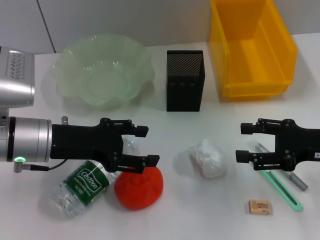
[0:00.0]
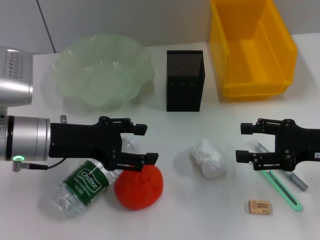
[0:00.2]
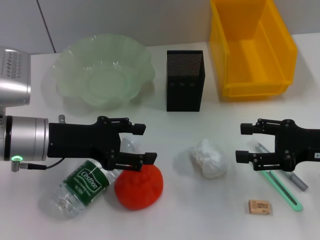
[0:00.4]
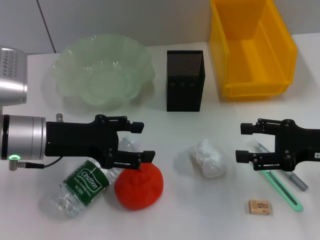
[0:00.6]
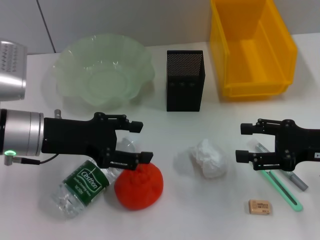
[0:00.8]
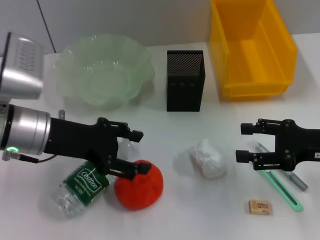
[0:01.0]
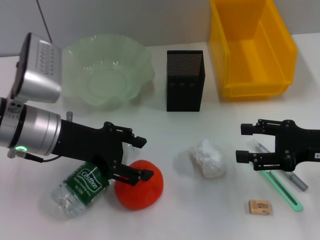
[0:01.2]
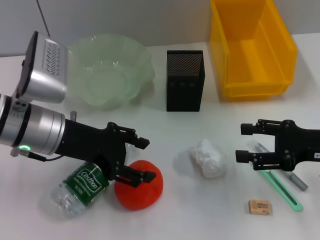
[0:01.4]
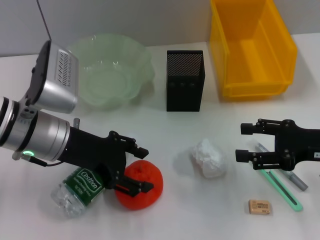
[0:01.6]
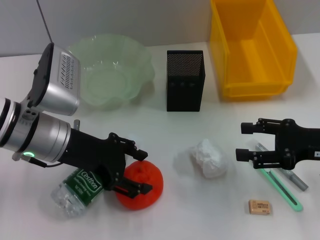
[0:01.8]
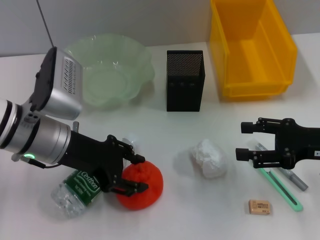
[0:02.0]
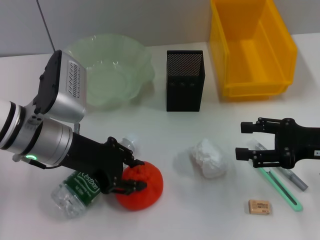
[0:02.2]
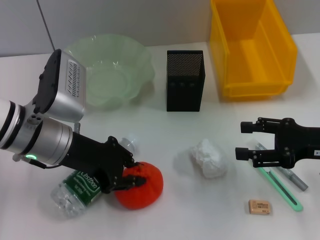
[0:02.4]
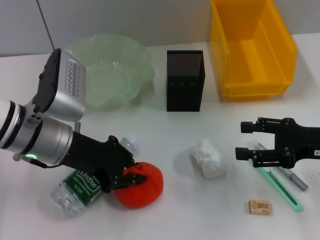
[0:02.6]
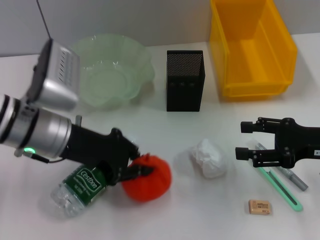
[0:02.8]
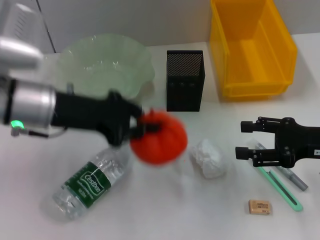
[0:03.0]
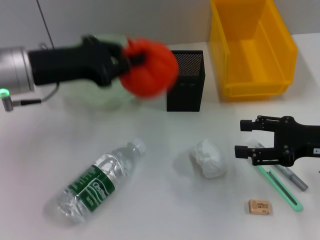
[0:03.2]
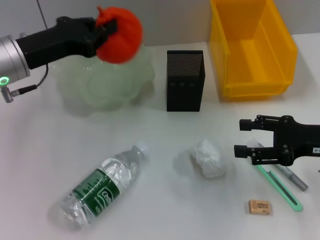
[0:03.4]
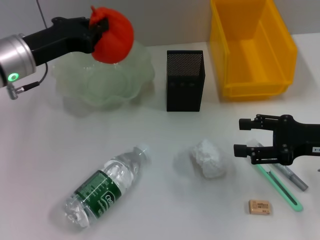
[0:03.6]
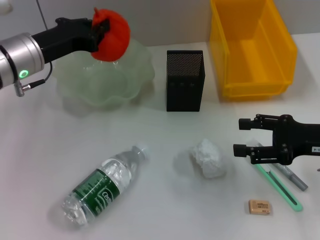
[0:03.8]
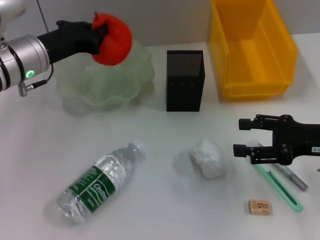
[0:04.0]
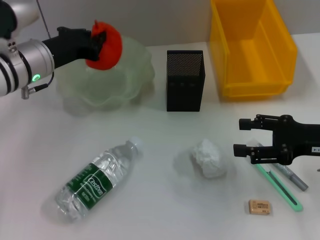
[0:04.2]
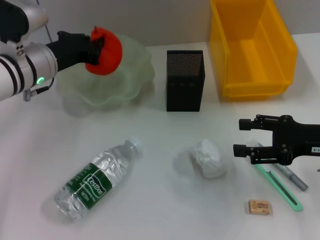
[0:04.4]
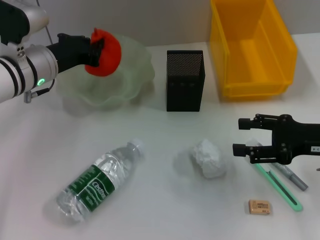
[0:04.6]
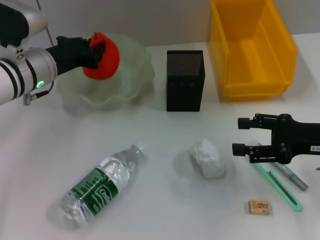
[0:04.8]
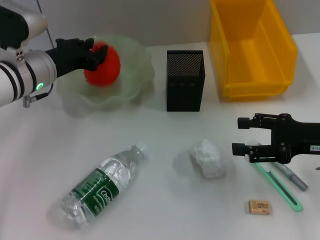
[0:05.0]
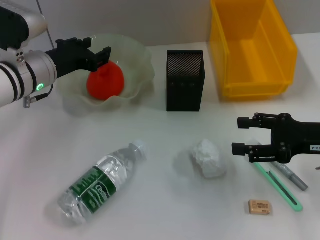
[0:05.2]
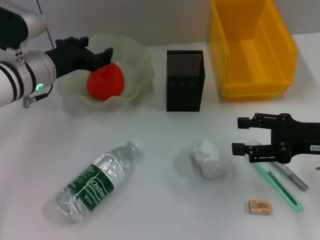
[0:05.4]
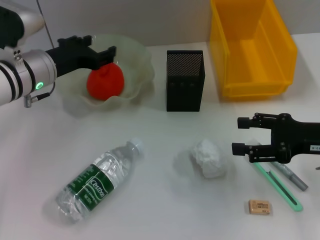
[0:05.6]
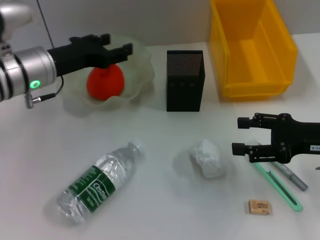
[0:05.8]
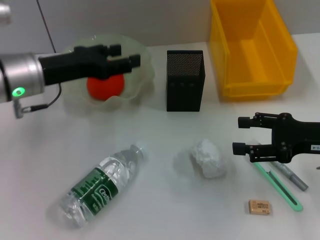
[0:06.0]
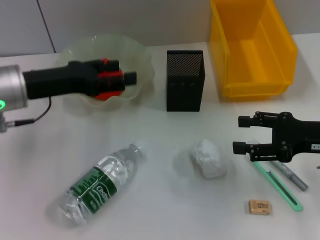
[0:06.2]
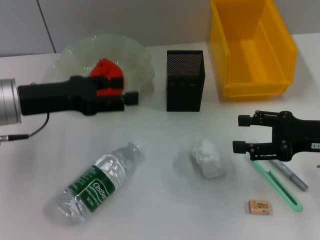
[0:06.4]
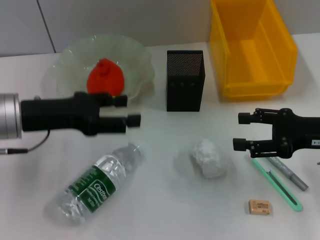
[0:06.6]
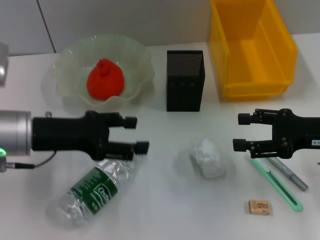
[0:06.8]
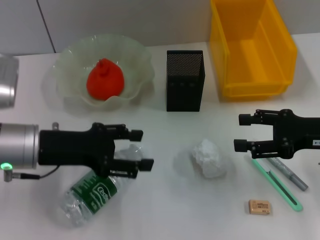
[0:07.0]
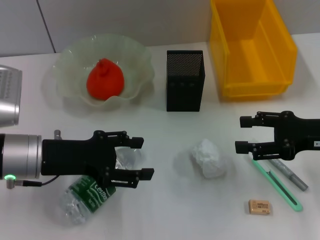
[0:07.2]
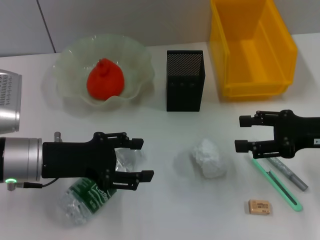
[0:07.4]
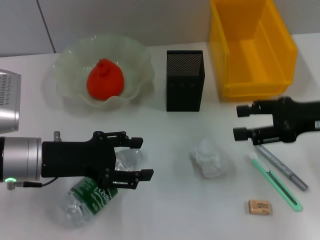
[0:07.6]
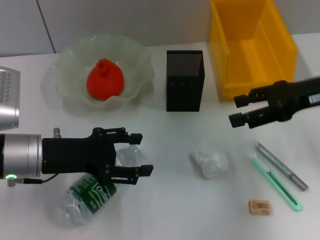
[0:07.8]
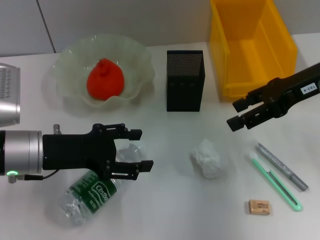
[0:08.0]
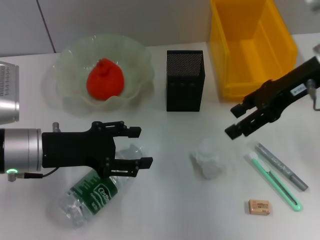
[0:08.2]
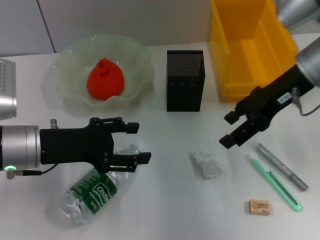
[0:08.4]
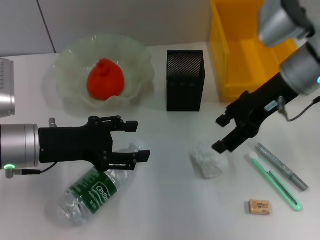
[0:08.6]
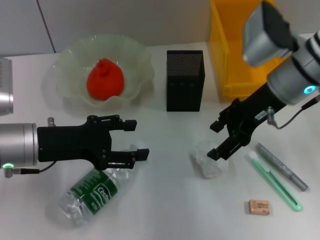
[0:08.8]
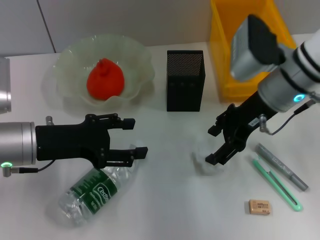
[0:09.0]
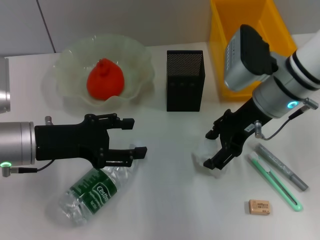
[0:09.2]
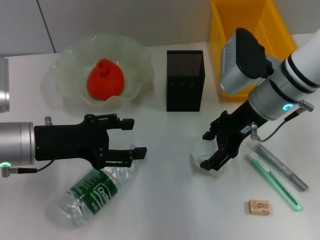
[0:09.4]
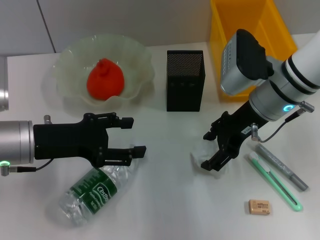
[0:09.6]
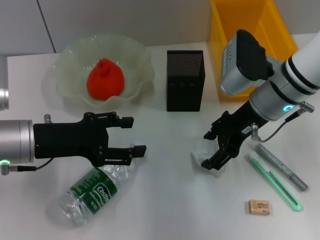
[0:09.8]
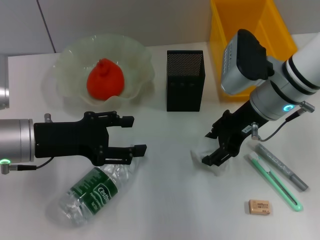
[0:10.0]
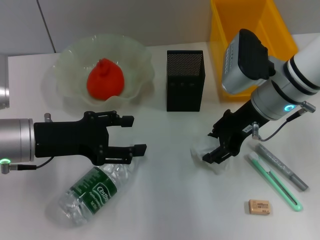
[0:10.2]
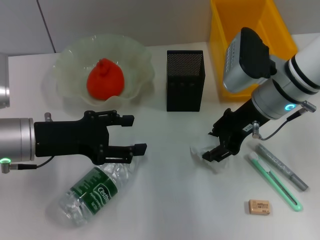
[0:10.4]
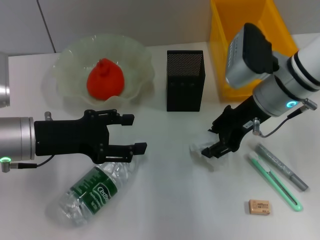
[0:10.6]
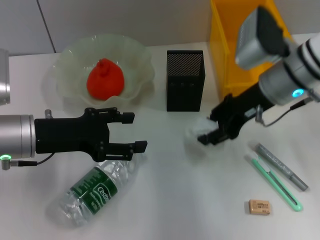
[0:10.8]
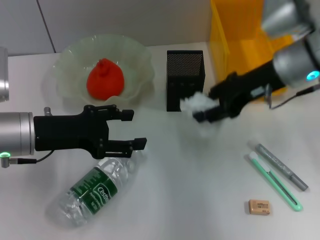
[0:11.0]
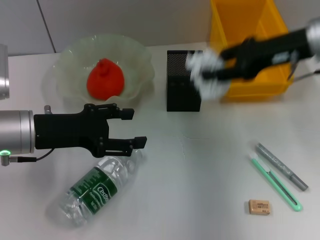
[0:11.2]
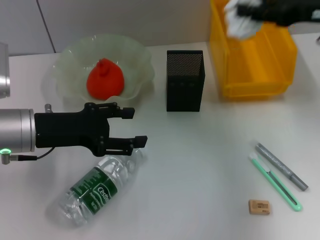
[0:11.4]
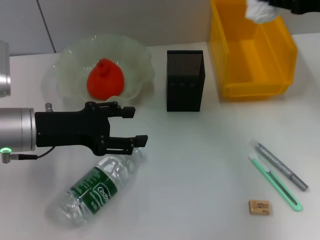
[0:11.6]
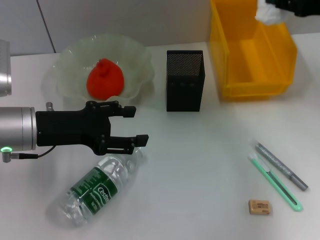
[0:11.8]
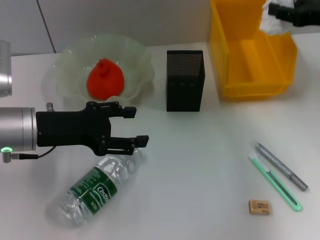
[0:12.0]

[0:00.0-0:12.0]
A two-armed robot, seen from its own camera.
Step, 0:00.0 to 0:02.4: Grab the orange with the left hand.
Step, 0:02.6 to 0:05.2: Place the orange into the fruit bowl with the left hand.
Step, 0:05.4 to 0:10.2: Grab the paper ball with the right hand.
0:01.6 to 0:03.0: The left gripper closes.
0:03.0 to 0:04.4: The left gripper heads forward, covering about 10 cm.
0:04.4 to 0:06.0: The left gripper opens up.
0:06.0 to 0:07.6: The left gripper heads backward, covering about 10 cm.
0:07.6 to 0:09.0: The right gripper goes roughly 15 cm to the left and forward.
0:09.0 to 0:10.4: There are only small adjustments of the grippers.
0:10.4 to 0:12.0: The right gripper heads to the right, covering roughly 15 cm.

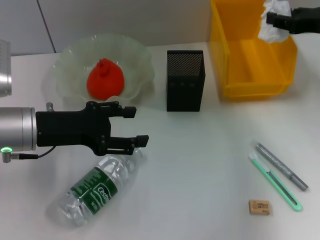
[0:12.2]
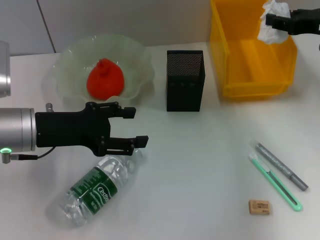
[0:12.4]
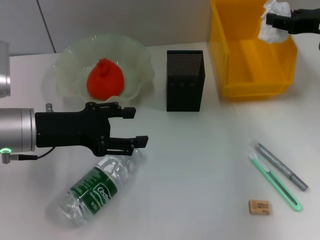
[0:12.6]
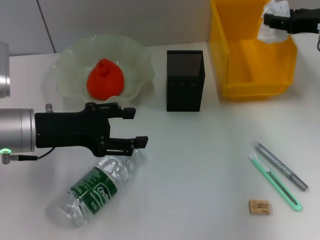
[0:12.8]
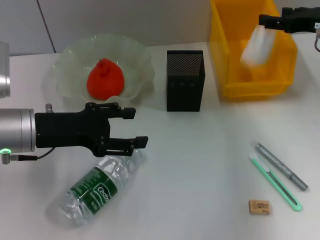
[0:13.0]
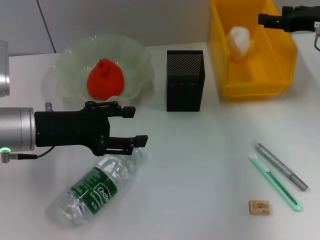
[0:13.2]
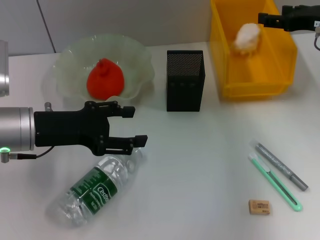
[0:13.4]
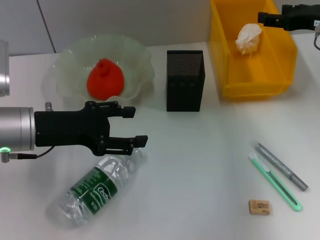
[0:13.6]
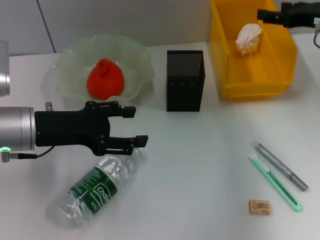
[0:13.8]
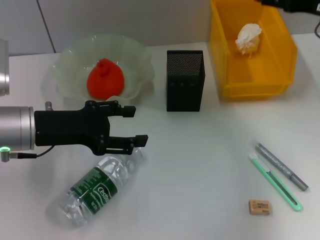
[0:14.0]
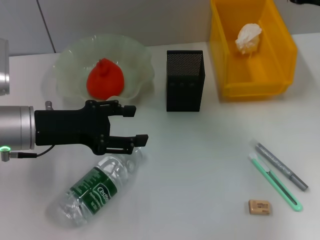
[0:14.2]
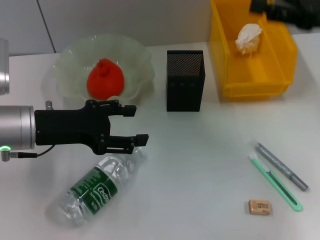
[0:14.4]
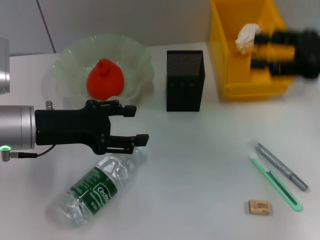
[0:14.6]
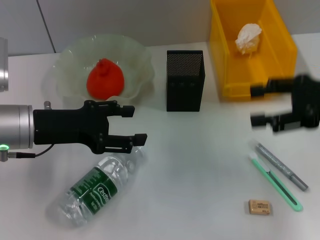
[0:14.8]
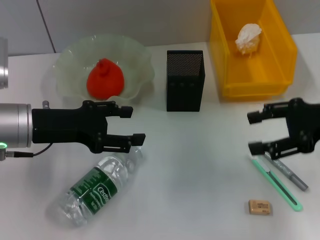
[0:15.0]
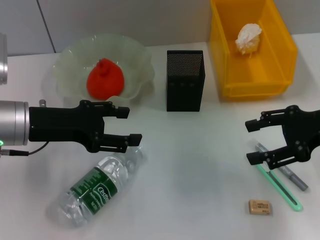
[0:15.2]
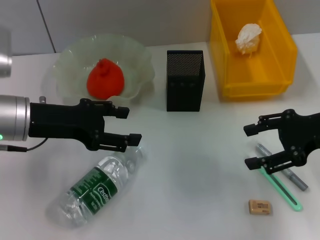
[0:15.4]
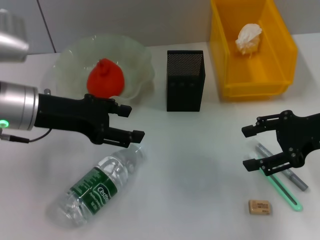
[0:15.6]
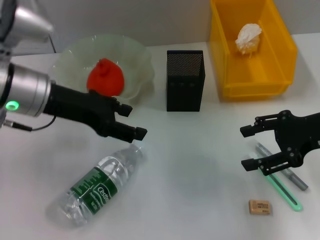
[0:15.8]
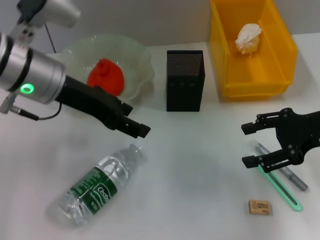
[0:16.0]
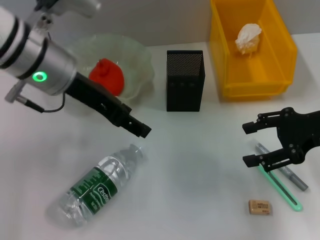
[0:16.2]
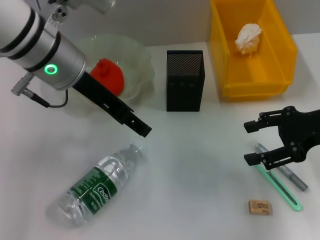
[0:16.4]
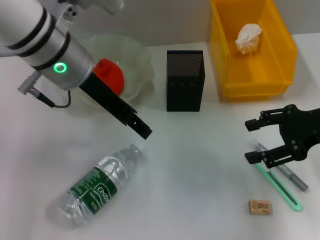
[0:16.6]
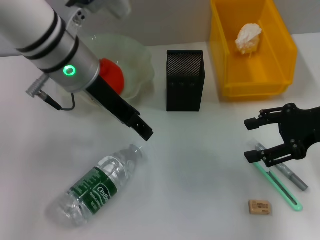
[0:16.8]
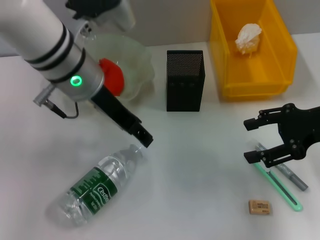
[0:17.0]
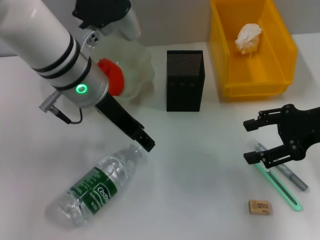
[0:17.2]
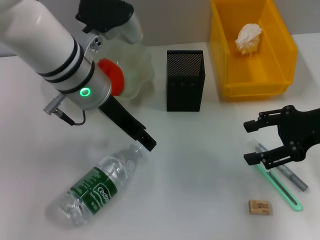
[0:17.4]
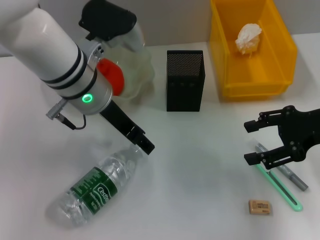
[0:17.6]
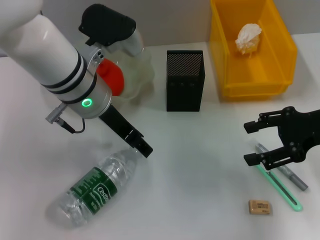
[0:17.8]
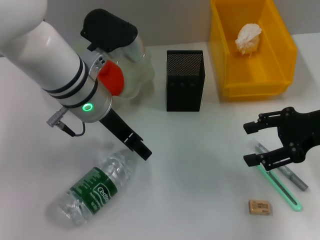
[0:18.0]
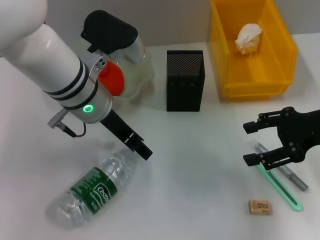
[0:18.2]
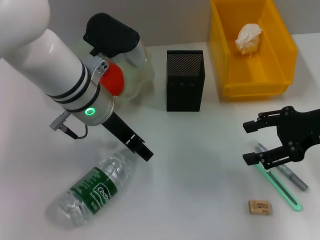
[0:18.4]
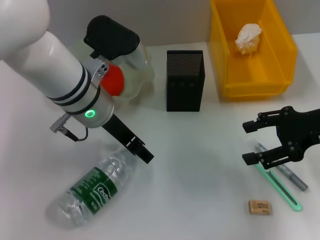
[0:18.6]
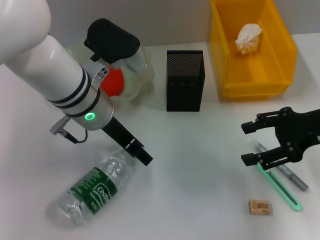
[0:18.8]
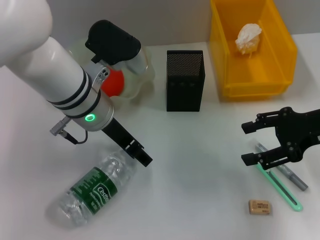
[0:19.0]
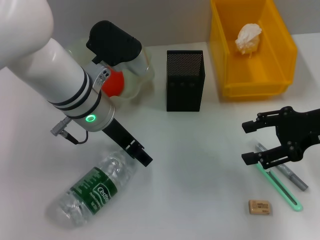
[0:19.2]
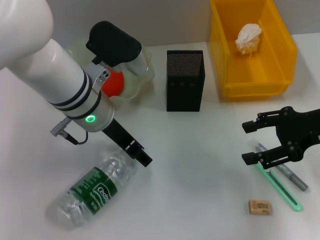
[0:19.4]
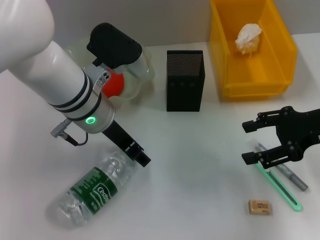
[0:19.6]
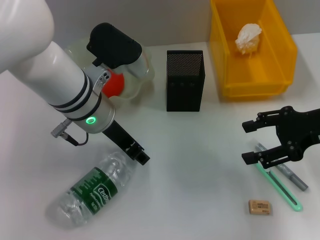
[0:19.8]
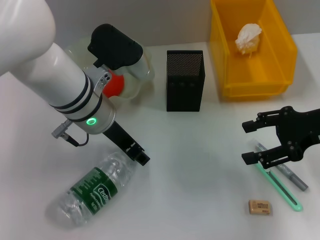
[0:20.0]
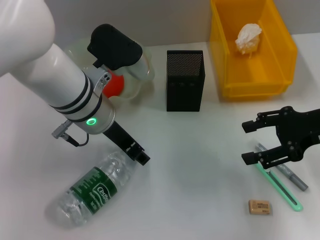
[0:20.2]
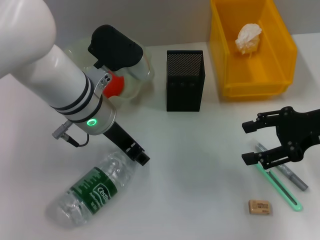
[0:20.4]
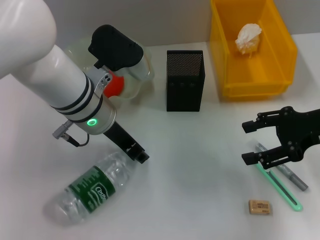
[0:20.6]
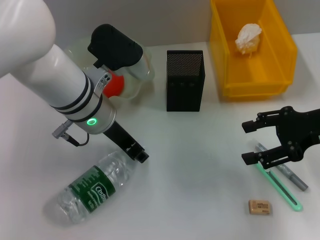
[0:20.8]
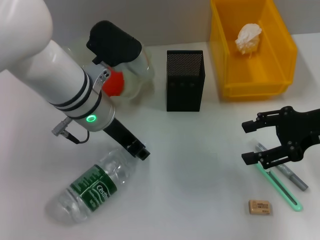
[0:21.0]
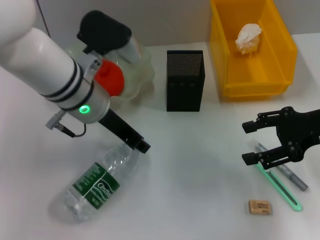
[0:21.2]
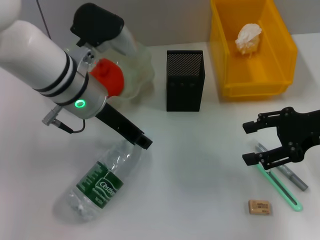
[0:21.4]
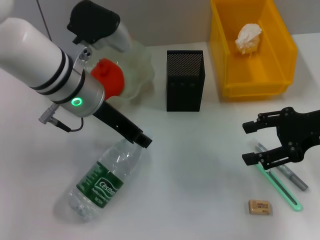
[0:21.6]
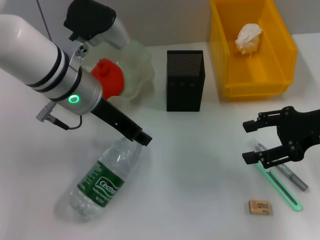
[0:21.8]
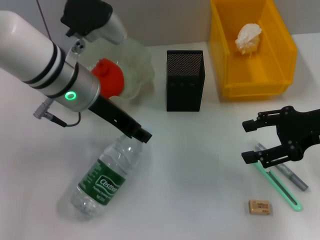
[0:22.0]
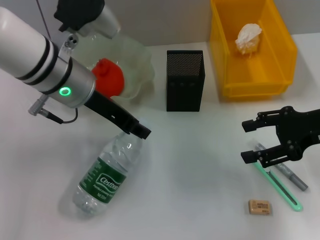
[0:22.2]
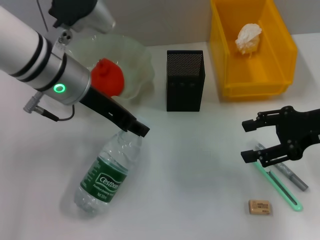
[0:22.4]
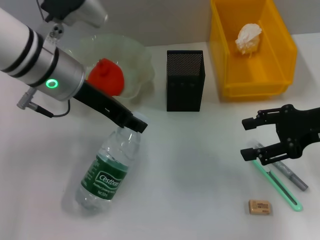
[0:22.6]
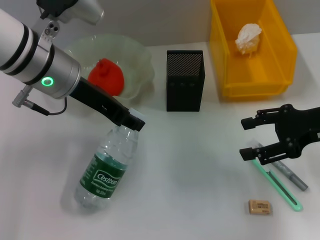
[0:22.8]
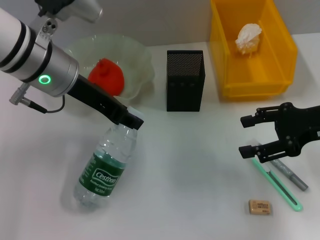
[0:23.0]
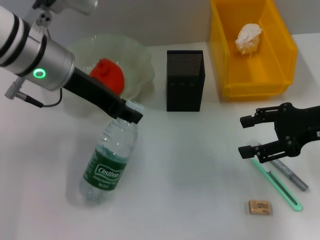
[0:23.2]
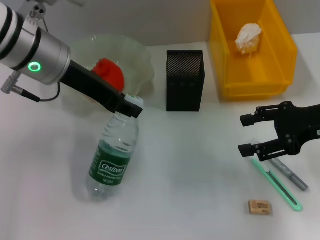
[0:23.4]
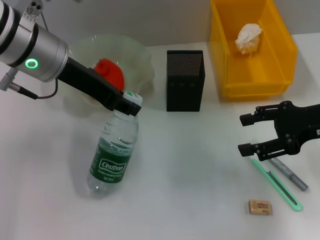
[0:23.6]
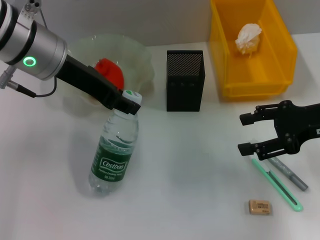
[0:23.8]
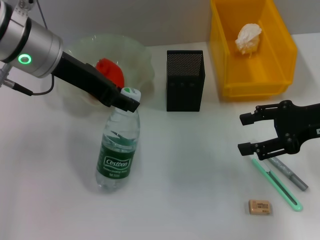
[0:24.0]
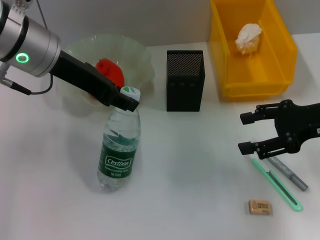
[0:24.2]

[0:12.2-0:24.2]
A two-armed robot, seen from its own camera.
Step, 0:13.6 to 0:20.6: Grab the water bottle with the left hand.
0:12.2 to 0:13.8: The right gripper opens its fingers.
0:13.8 to 0:15.2: The right gripper goes about 10 cm backward.
0:15.2 to 0:16.6: The left gripper moves to the right and upward, roughly 15 cm.
0:16.6 to 0:18.2: The left gripper heads downward, covering some 5 cm.
0:18.2 to 0:21.2: The grippers make only small movements.
0:21.2 to 0:22.6: The left gripper shifts by about 5 cm.
0:22.6 to 0:24.2: The grippers move only a little.
